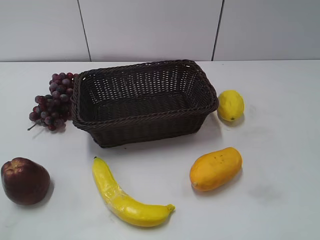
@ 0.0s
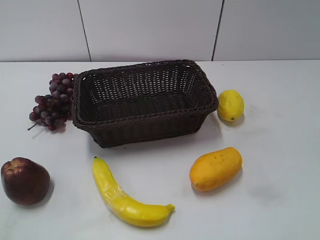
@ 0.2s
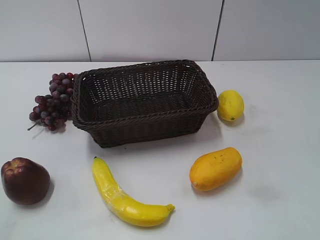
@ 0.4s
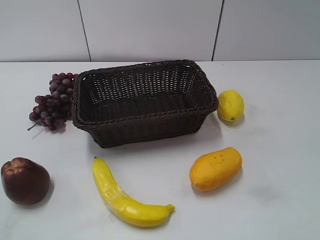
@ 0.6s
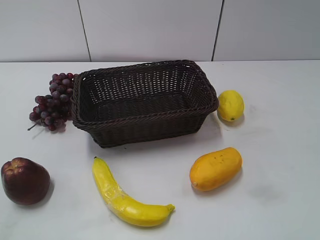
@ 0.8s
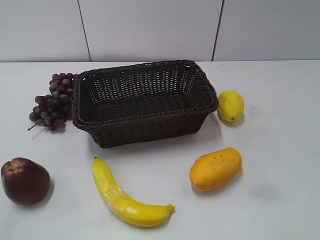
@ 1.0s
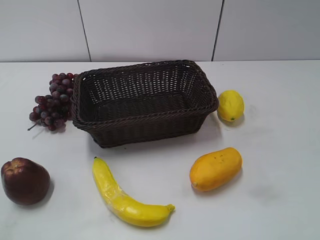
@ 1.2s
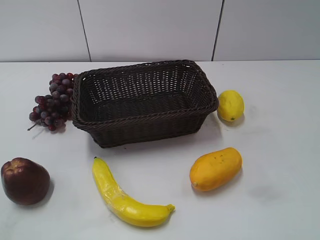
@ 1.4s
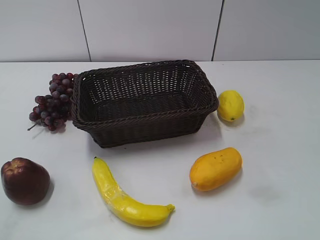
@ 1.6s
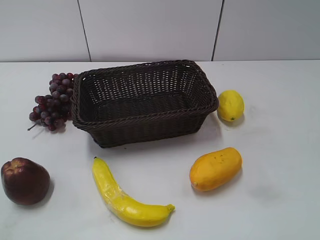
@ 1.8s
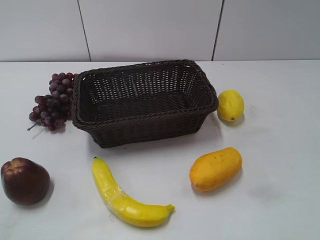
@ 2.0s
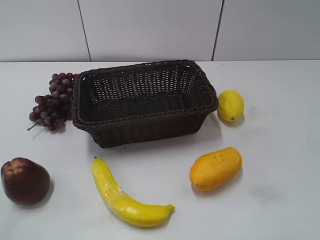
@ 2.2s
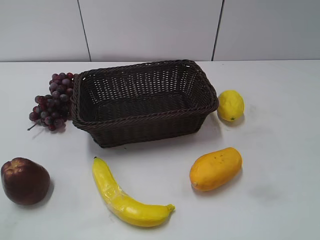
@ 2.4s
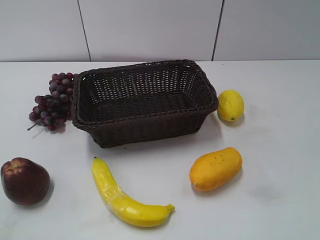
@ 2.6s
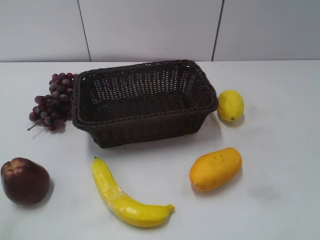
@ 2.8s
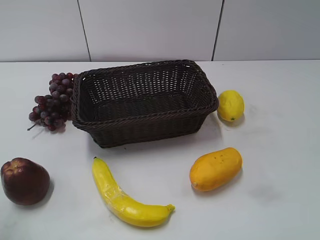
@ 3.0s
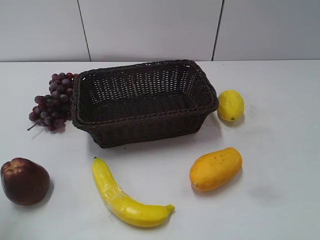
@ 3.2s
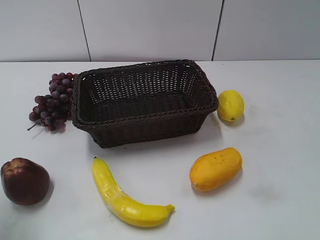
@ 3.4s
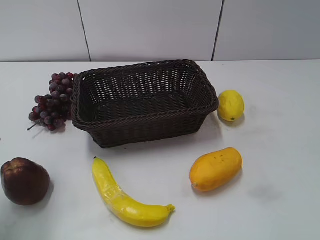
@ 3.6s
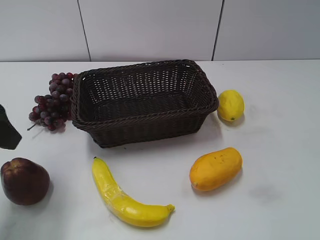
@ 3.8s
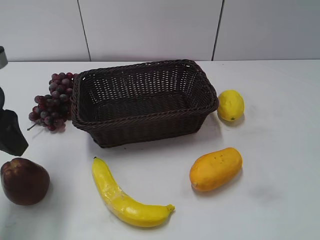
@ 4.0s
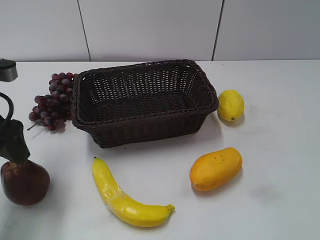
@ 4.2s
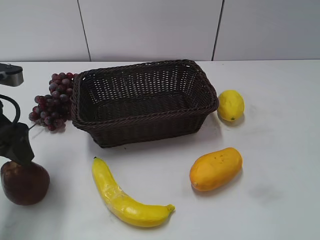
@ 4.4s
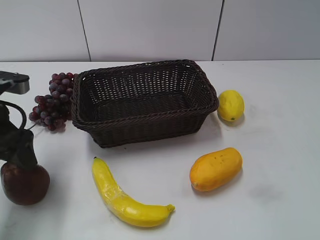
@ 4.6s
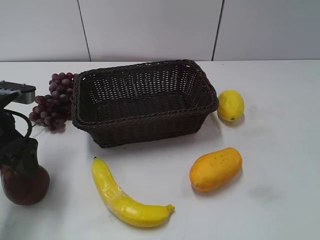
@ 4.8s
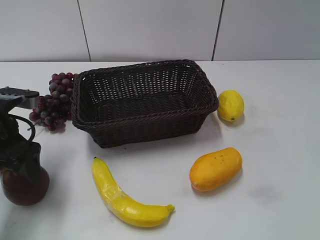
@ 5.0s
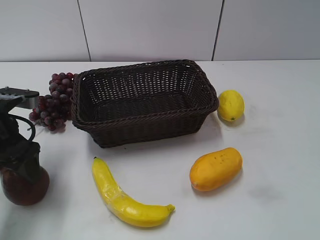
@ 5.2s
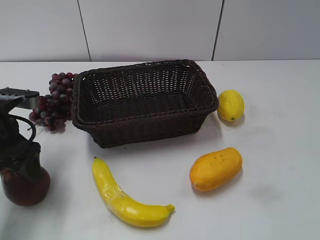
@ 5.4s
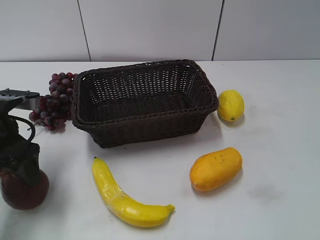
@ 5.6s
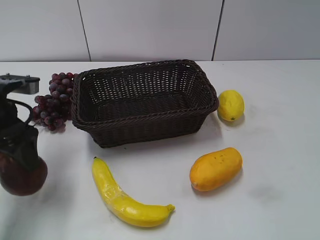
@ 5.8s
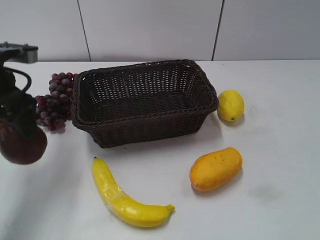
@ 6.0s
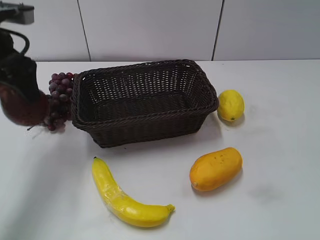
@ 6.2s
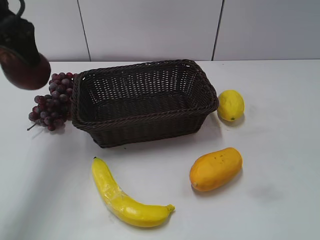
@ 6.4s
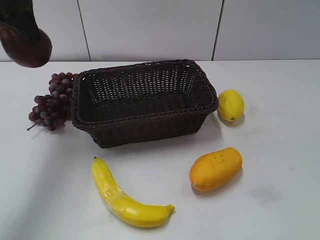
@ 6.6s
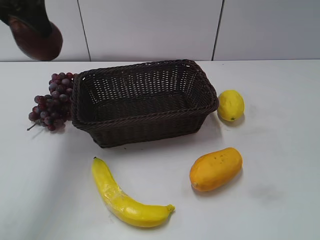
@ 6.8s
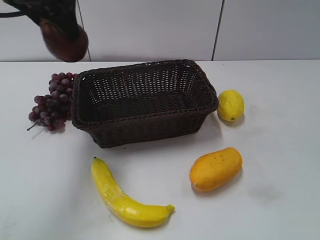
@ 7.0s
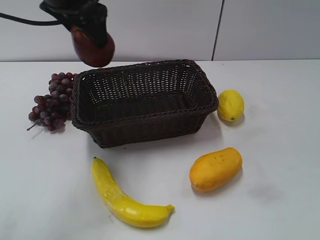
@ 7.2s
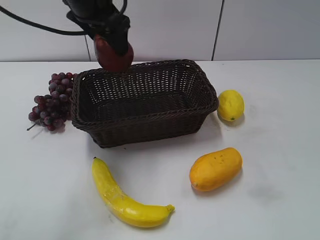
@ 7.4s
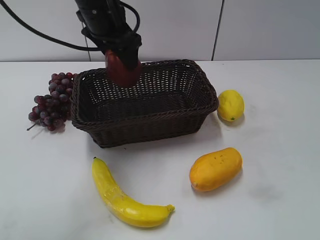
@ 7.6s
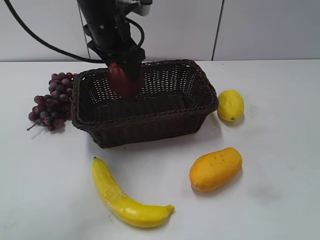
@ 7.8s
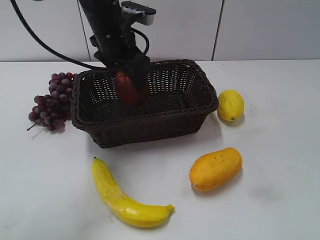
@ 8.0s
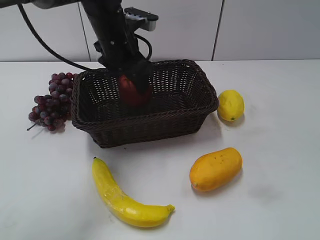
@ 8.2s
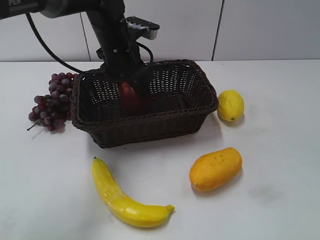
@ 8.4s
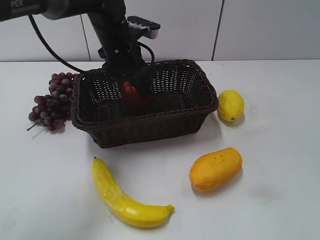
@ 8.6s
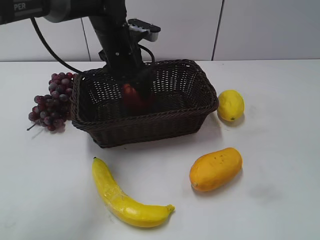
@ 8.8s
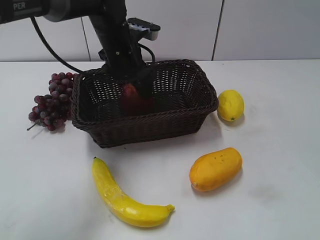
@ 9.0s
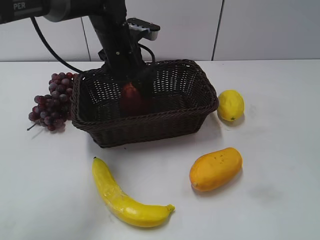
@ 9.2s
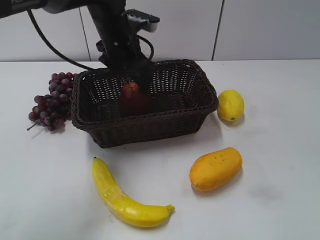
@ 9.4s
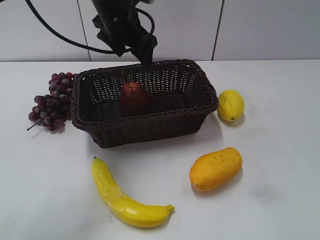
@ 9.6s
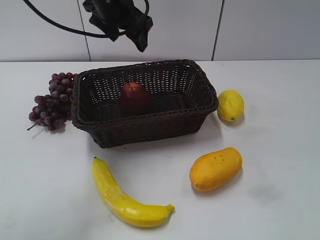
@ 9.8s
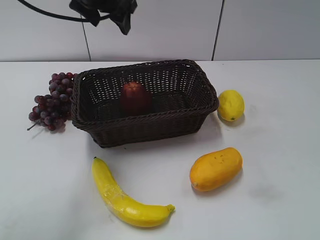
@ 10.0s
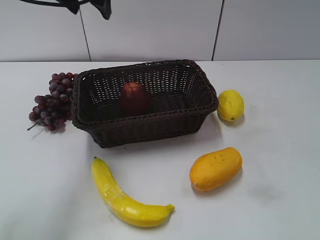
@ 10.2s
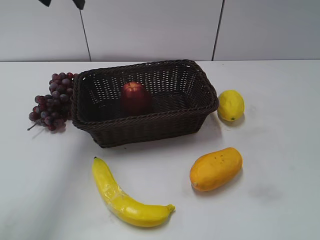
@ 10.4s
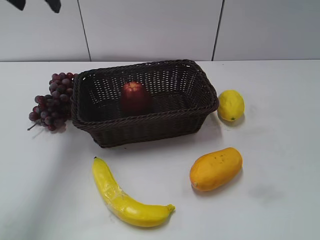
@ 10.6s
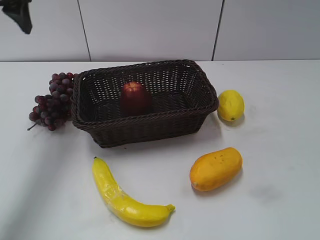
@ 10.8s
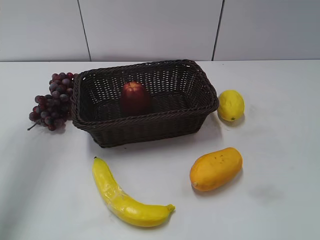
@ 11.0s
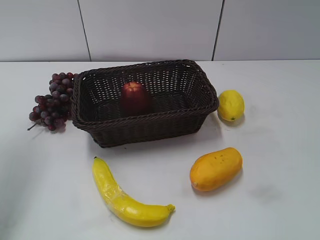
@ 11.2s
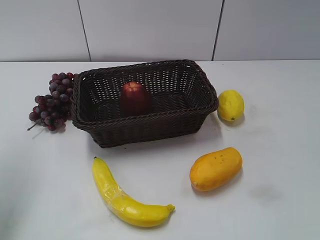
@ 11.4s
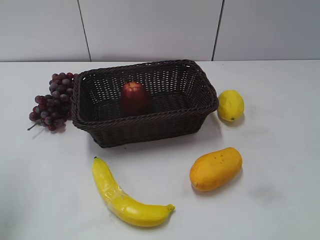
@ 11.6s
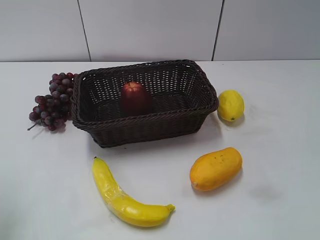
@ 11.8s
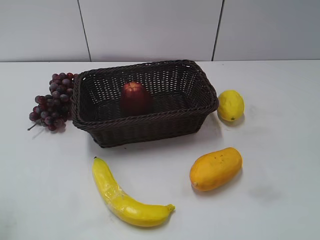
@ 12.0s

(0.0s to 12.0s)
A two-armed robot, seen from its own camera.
Step, 3.6s - 5.0s: Grasp the apple with left gripper.
Step, 5.2s - 8.8s: Place the apple in the basket with left gripper.
3.0s - 4.4s: The left gripper travels forward and downward by some 15 cm.
4.4s - 6.0s: The left gripper shifts by about 5 cm.
6.0s - 7.6s: The left gripper is displaced to the right and forward by roughly 20 cm.
7.6s - 9.0s: The left gripper shifts roughly 10 cm downward, and opens its fingers.
9.0s - 10.4s: The left gripper heads upward and to the left, covering roughly 20 cm.
10.4s - 12.0s: The left gripper moves backward and to the left, about 35 cm.

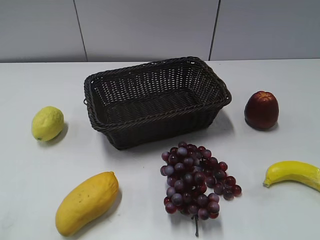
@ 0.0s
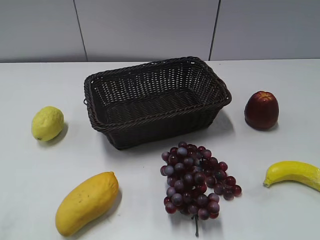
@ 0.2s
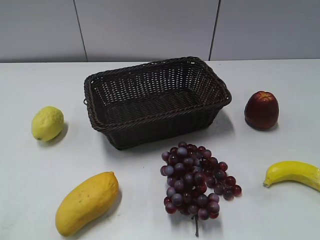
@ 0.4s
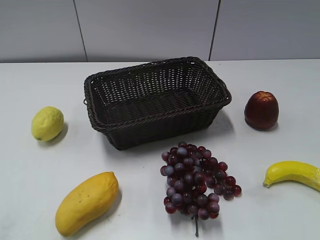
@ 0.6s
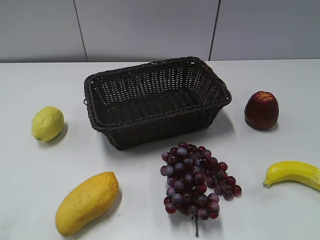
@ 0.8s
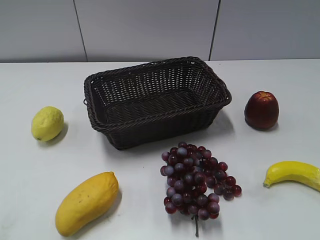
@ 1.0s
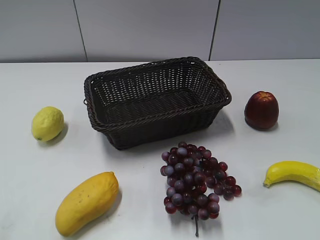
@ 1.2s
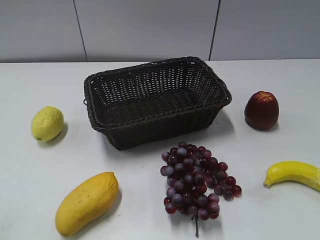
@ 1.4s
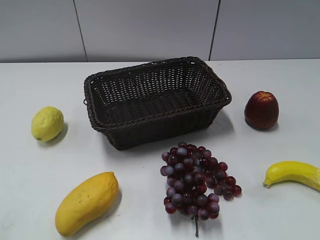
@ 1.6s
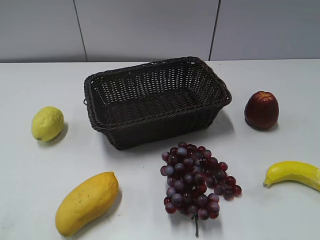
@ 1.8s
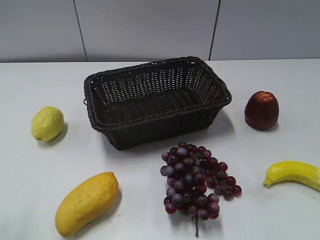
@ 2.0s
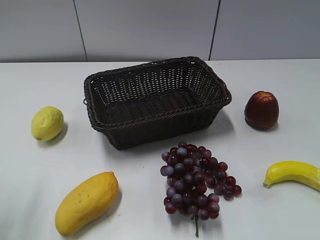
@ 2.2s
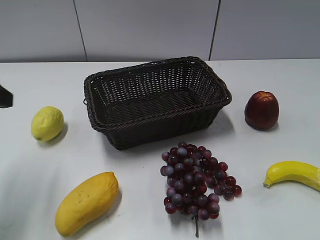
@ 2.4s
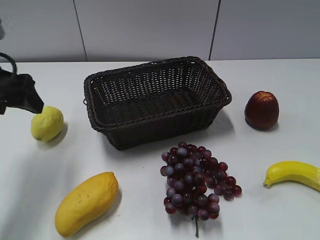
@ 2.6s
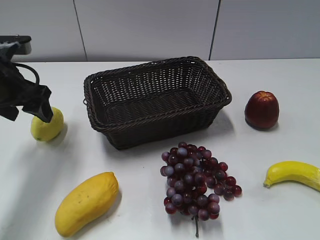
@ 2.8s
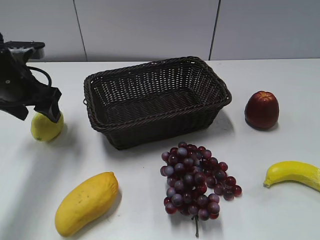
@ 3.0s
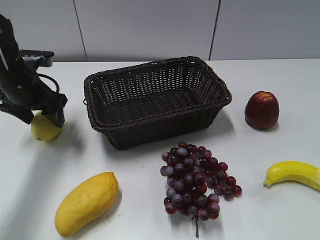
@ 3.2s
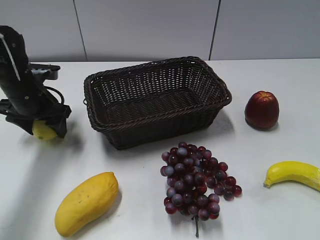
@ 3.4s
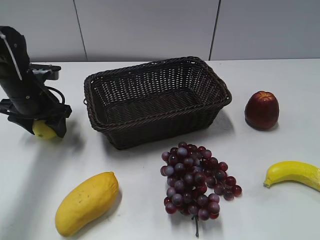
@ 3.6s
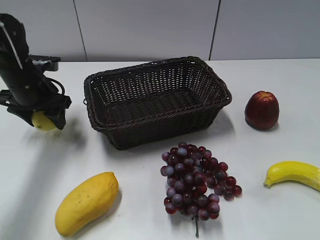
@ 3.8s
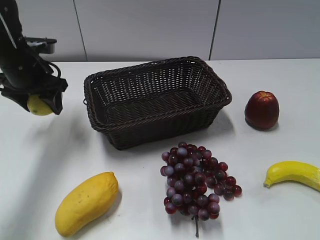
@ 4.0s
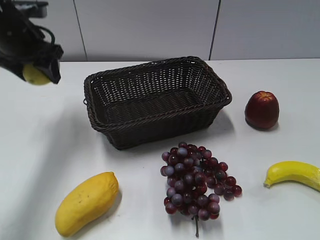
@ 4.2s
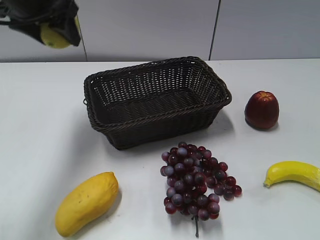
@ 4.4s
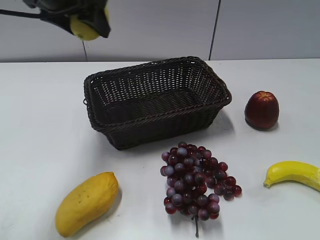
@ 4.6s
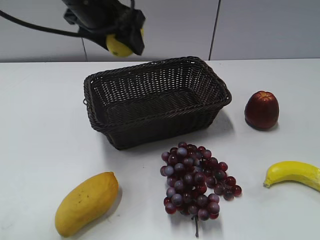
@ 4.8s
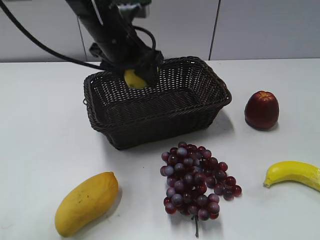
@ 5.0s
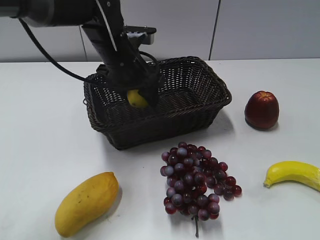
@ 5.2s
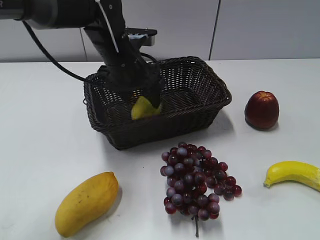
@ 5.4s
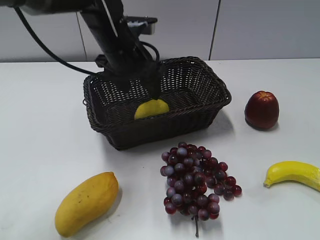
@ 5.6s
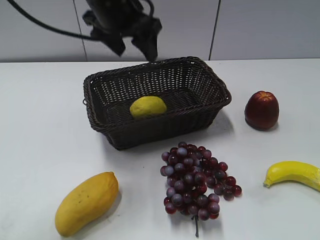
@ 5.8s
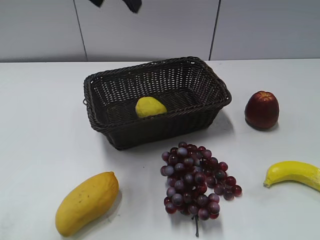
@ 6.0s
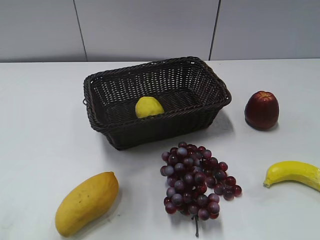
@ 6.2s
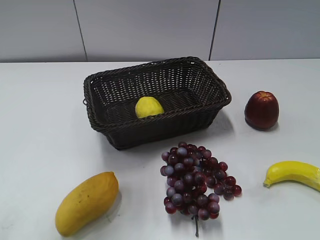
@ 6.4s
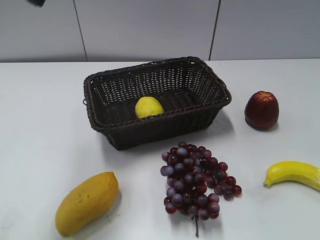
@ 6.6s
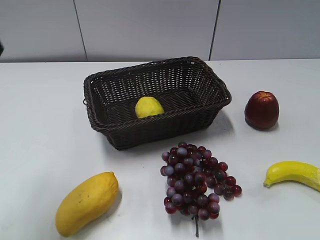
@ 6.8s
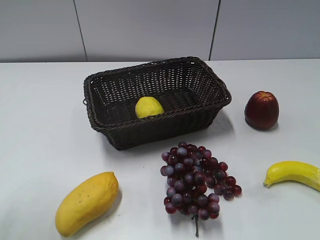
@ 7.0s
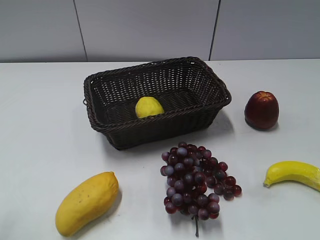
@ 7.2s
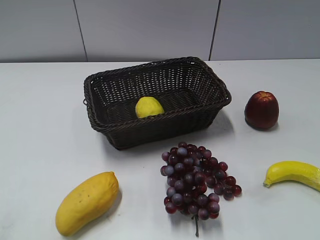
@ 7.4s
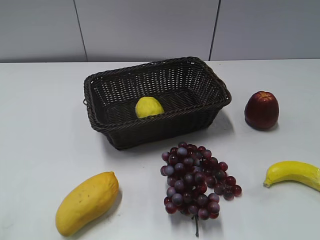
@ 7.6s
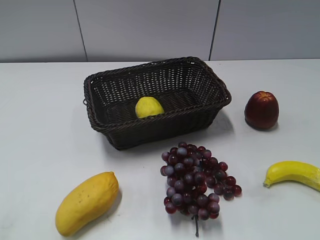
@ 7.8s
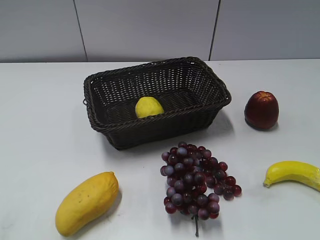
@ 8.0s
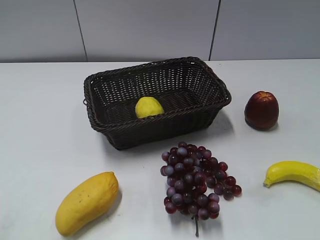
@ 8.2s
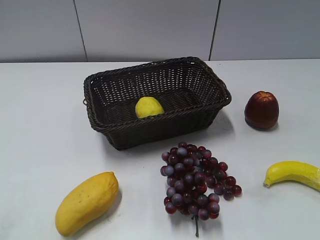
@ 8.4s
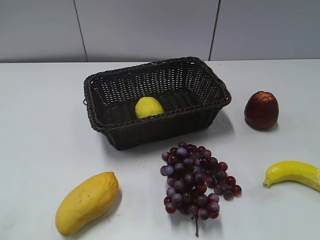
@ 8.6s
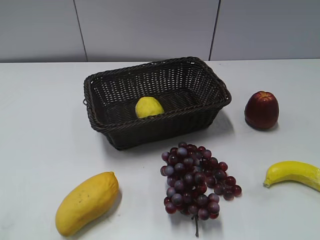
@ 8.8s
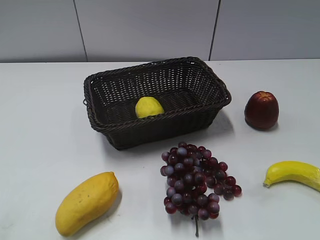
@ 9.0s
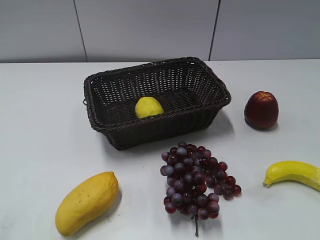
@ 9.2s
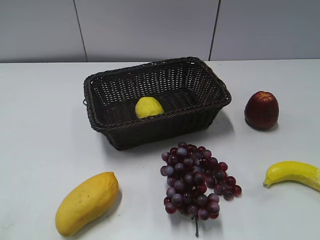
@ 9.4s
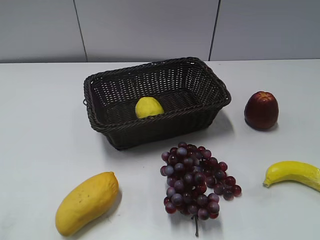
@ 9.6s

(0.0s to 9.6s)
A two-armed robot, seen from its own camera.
Step, 2.4s - 3.6s: Grasp the lemon with left gripper.
Step, 3.8s - 5.4s: Place the lemon in the basket with left gripper.
1.6s - 3.2s: The left gripper shifts some 35 cm forward.
3.2s - 4.8s: The left gripper goes approximately 20 cm to the right and upward.
4.8s - 6.4s: The left gripper heads upward, backward and to the left, covering some 20 cm.
6.4s - 8.0s: The left gripper moves backward, downward and to the left, roughly 35 cm.
